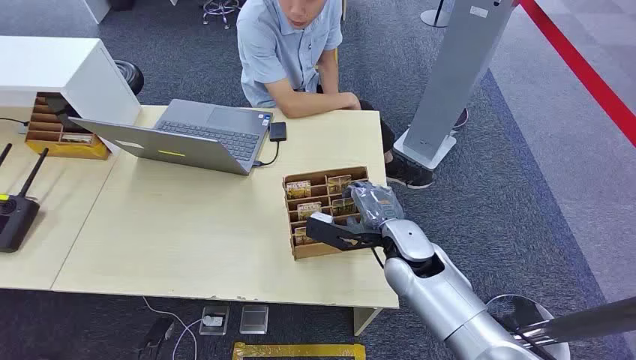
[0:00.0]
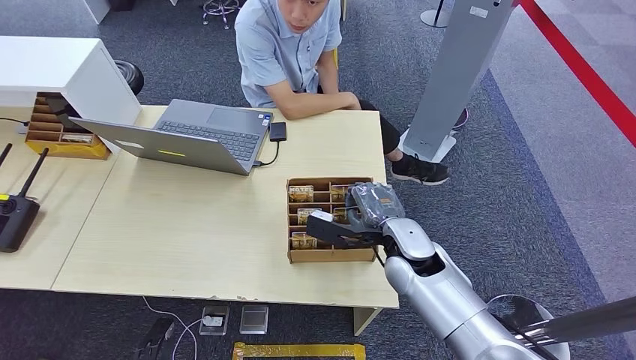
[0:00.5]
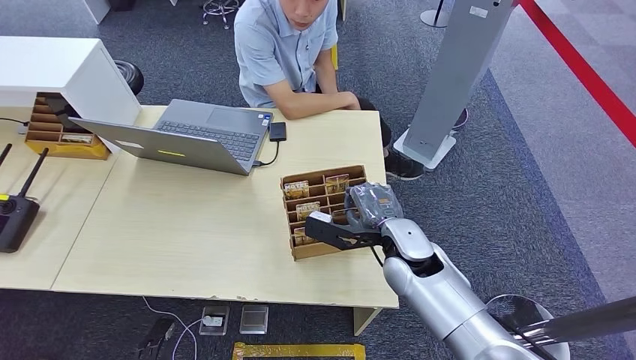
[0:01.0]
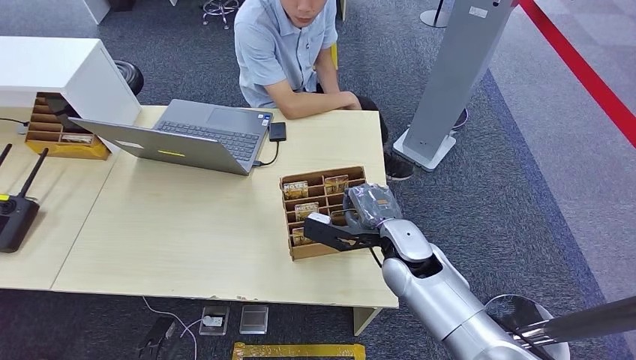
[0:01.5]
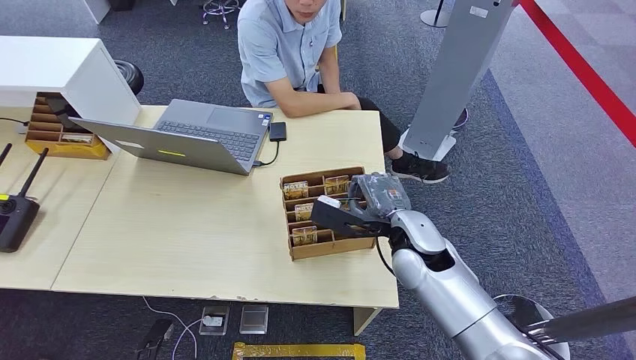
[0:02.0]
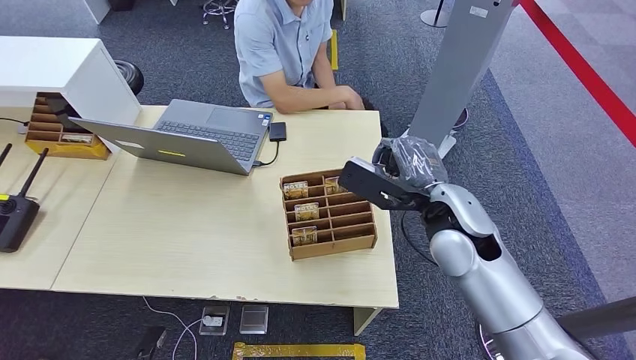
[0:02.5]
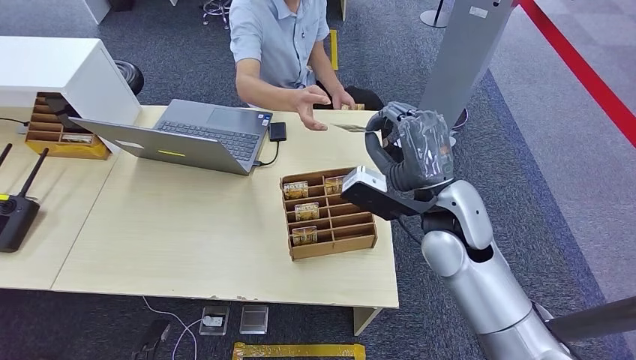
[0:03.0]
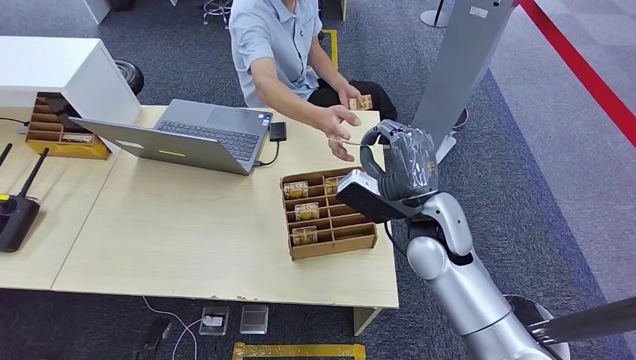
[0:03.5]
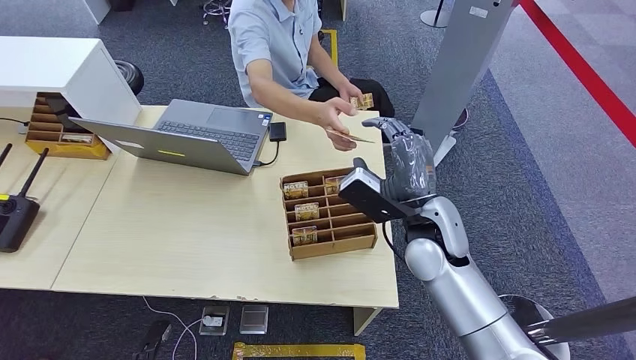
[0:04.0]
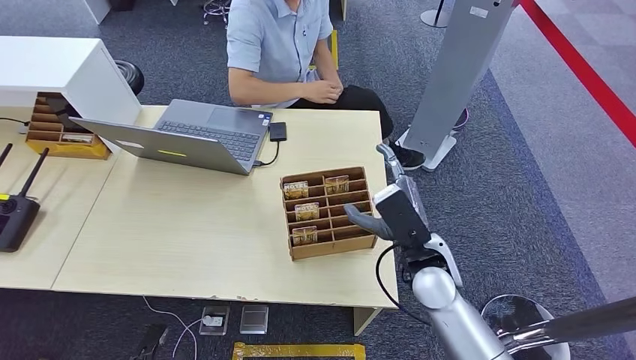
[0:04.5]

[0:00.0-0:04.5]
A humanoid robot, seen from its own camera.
Step, 0:00.0 to 0:02.0: Pick up the room card from the card holder.
Step, 0:03.0 to 0:04.5: Hand the room card to the target.
0:02.0 to 0:04.5: The right hand travels upward and back again, some 10 cm each way.
